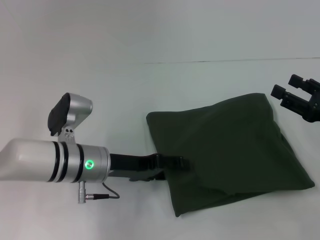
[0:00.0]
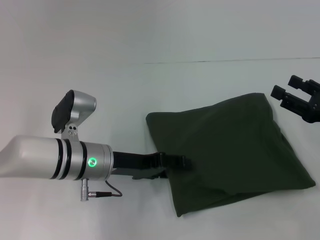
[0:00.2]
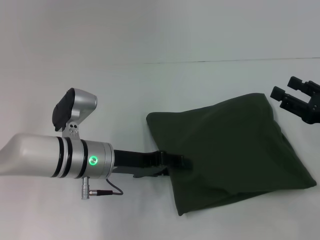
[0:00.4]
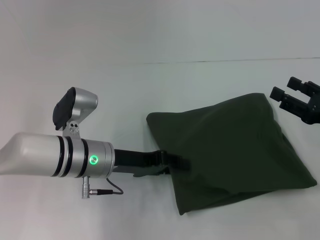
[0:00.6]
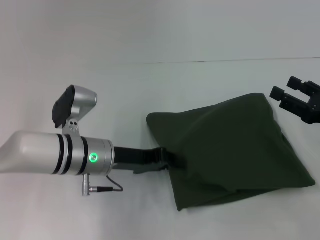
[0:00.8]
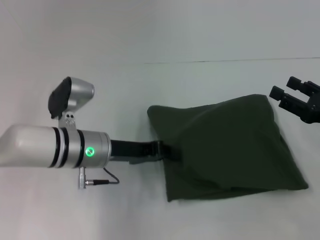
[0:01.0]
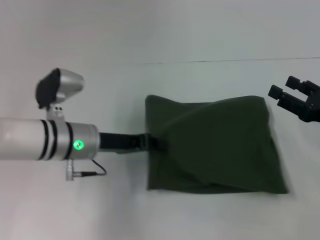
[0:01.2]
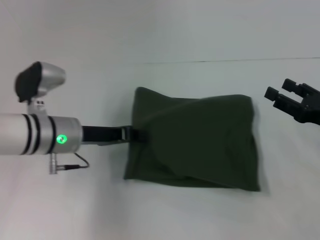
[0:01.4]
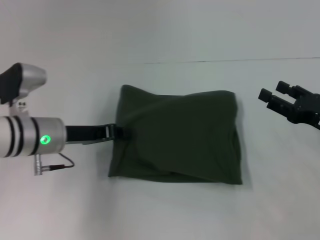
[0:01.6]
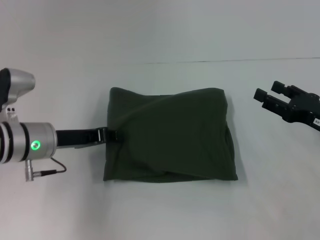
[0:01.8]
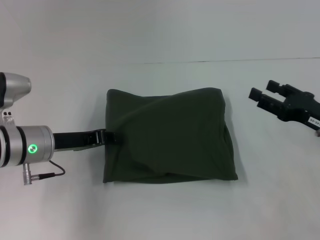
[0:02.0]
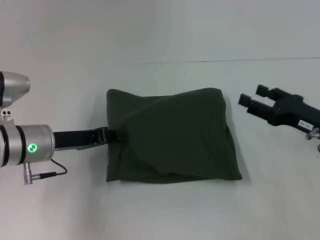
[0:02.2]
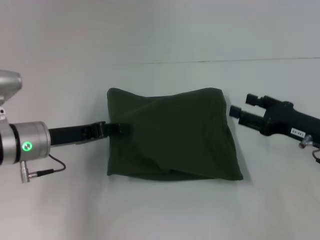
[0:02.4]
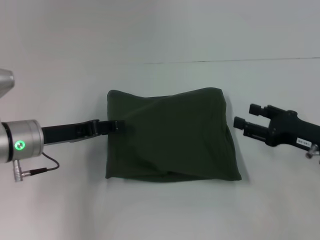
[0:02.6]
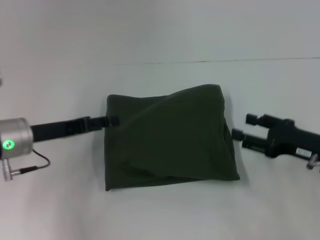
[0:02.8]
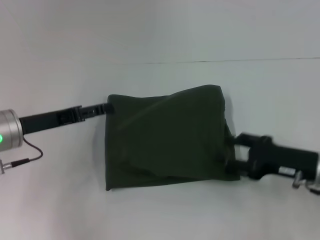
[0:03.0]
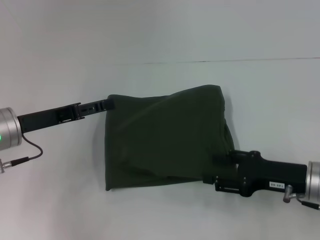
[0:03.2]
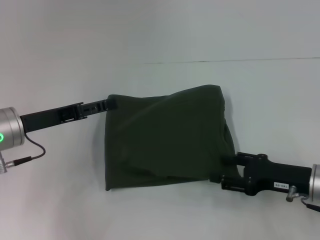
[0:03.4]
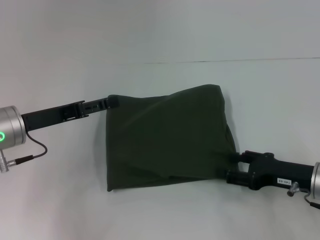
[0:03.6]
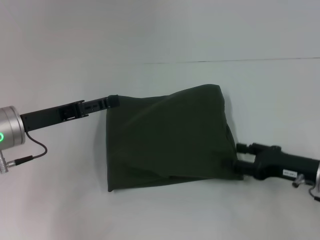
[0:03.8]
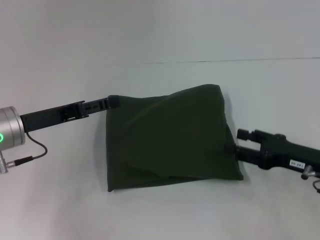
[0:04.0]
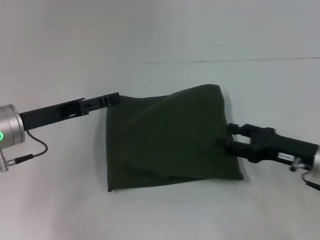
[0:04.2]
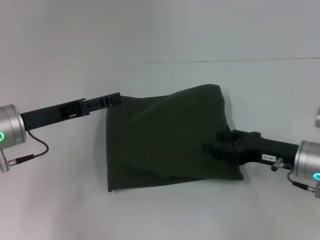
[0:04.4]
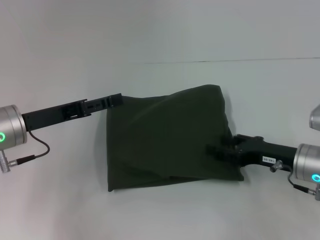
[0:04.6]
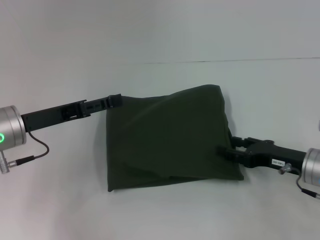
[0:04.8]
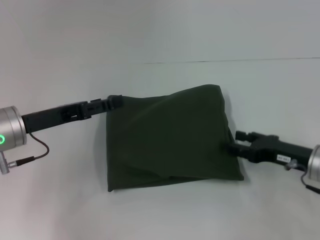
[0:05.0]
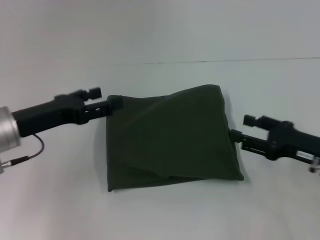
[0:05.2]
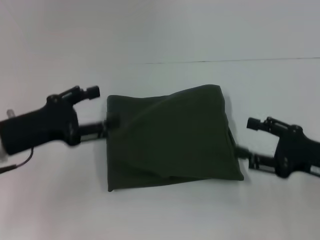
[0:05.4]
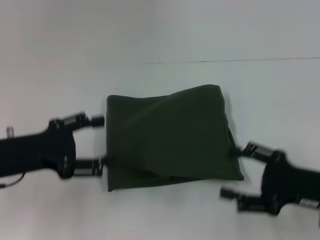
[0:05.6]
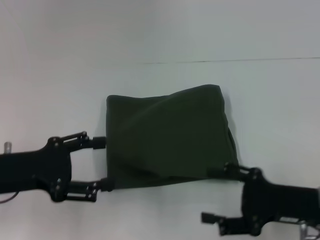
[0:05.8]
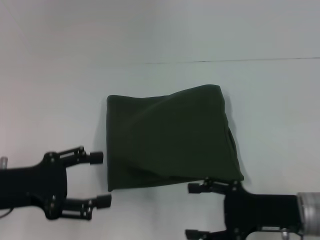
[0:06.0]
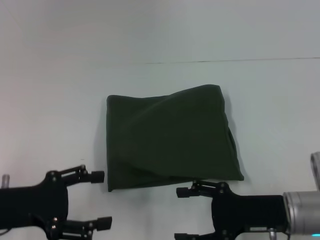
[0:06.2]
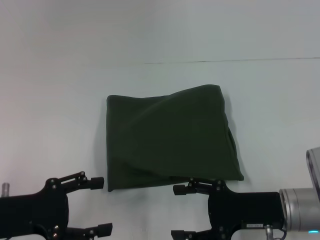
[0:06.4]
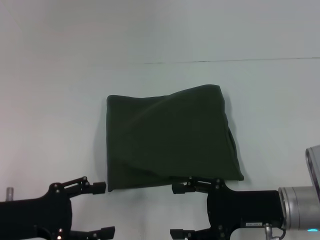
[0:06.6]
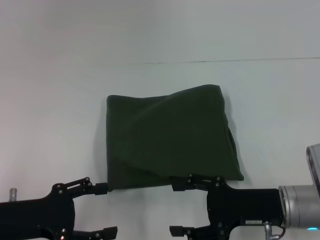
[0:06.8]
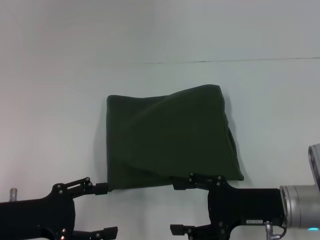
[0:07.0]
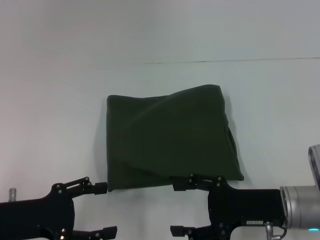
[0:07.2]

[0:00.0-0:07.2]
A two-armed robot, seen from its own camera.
0:00.0 to 0:01.4: The left gripper shifts by about 5 cm, and closes up.
0:01.4 to 0:02.8: The left gripper travels to the left by some 5 cm, and opens up.
0:02.8 to 0:04.4: The left gripper opens its fingers.
0:04.4 to 0:05.8: Both grippers move backward, about 5 cm.
0:05.8 to 0:07.2: The left gripper ends up roughly 5 cm from where it was.

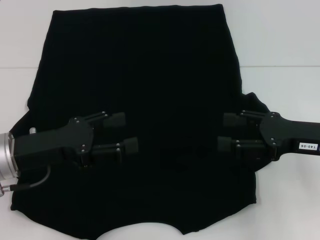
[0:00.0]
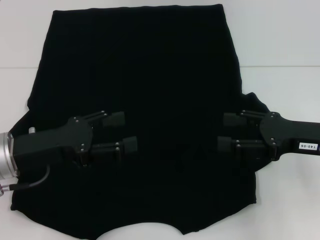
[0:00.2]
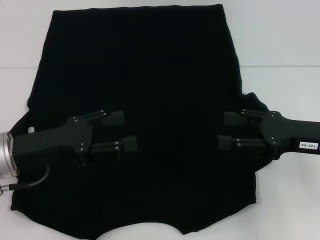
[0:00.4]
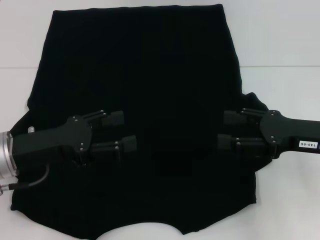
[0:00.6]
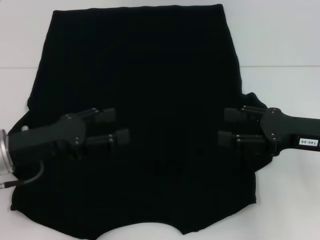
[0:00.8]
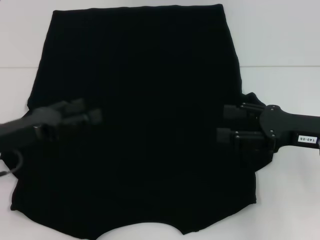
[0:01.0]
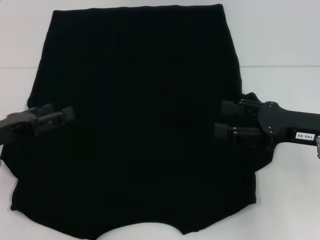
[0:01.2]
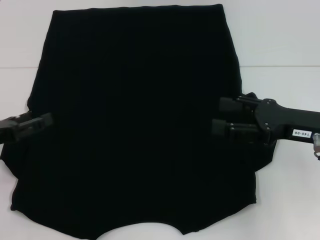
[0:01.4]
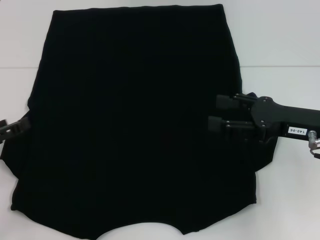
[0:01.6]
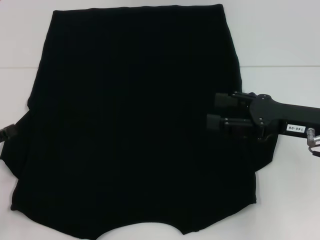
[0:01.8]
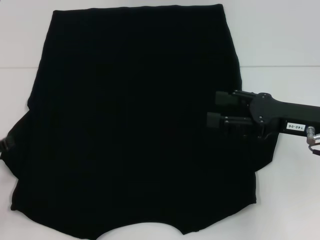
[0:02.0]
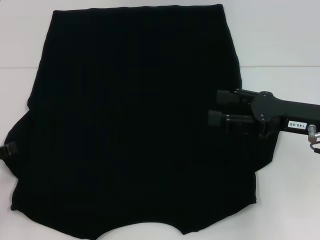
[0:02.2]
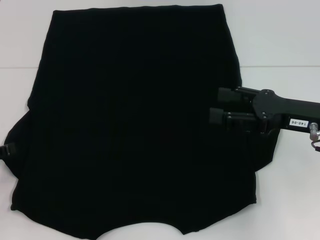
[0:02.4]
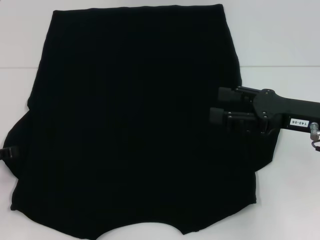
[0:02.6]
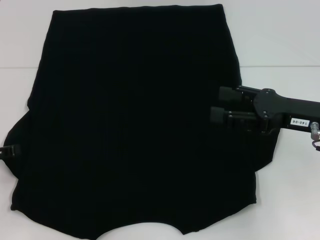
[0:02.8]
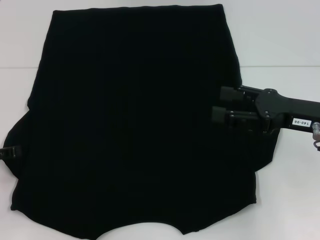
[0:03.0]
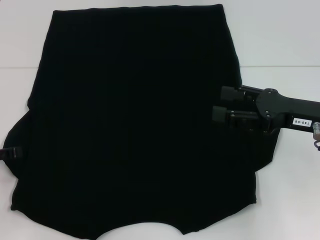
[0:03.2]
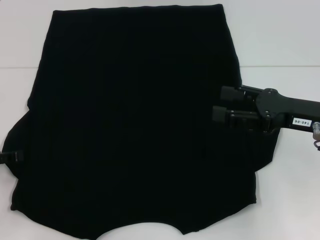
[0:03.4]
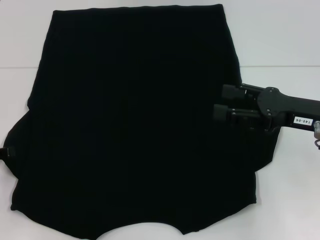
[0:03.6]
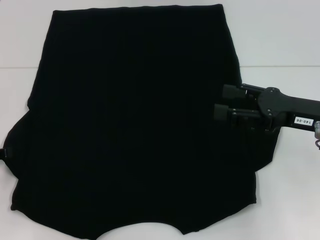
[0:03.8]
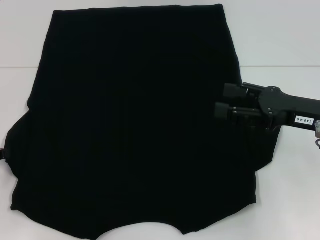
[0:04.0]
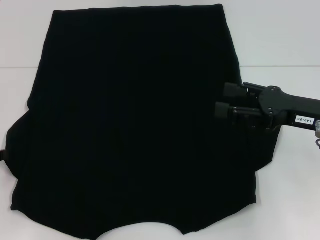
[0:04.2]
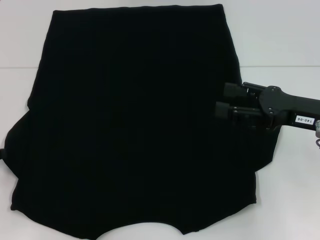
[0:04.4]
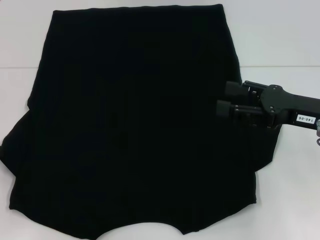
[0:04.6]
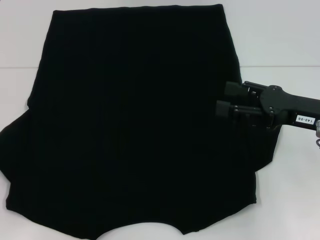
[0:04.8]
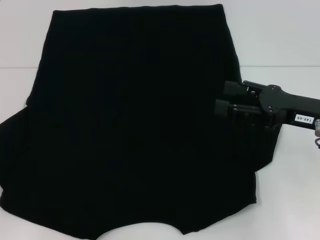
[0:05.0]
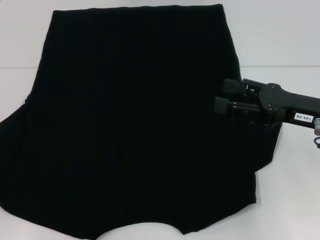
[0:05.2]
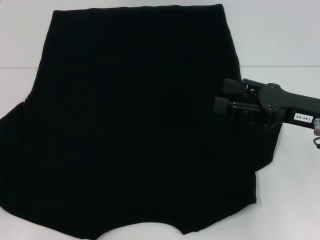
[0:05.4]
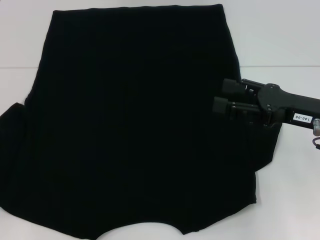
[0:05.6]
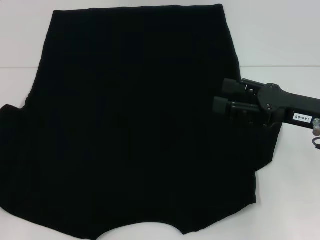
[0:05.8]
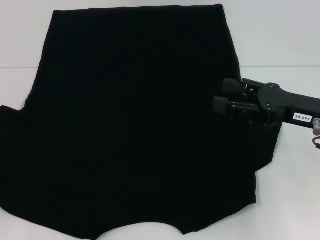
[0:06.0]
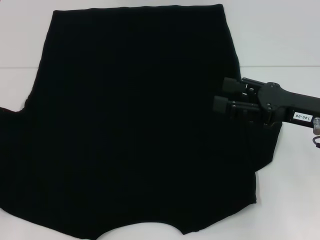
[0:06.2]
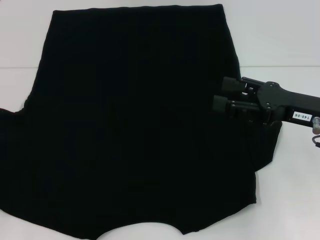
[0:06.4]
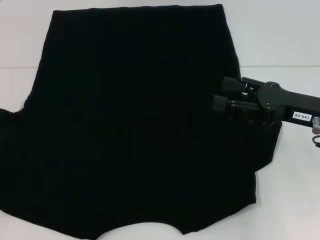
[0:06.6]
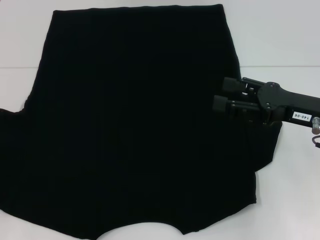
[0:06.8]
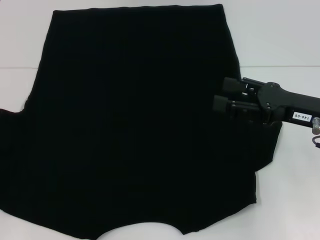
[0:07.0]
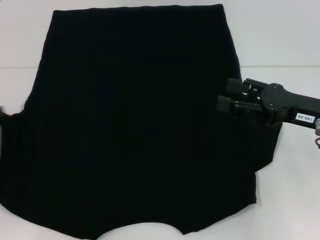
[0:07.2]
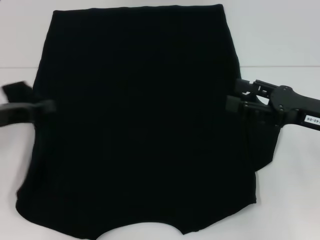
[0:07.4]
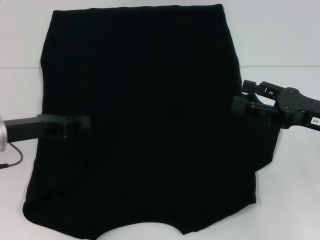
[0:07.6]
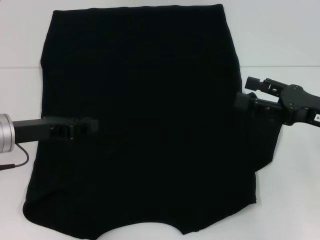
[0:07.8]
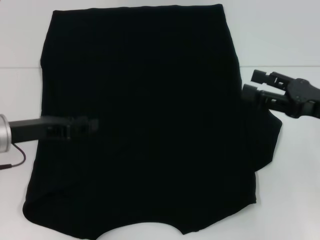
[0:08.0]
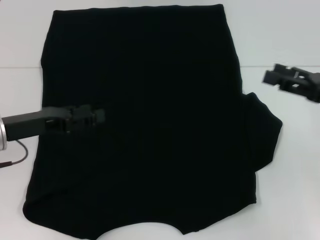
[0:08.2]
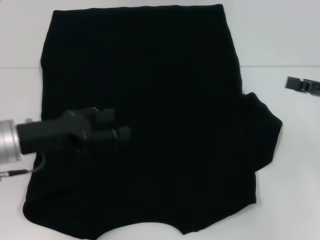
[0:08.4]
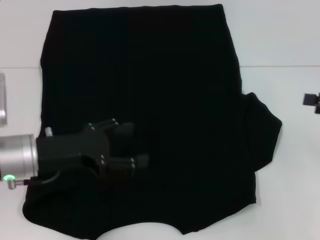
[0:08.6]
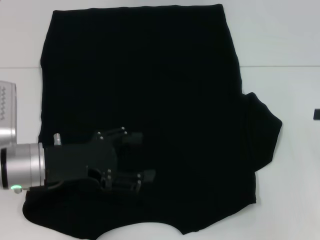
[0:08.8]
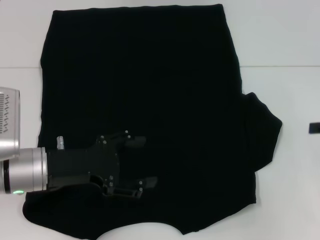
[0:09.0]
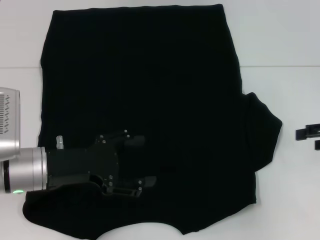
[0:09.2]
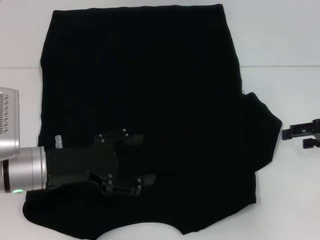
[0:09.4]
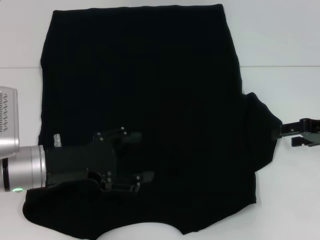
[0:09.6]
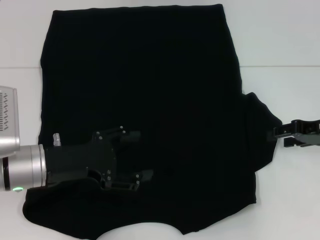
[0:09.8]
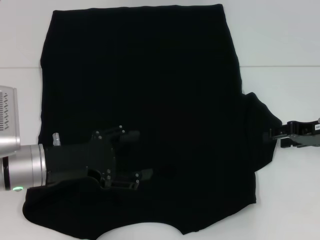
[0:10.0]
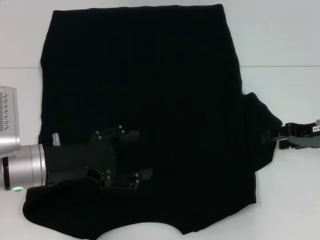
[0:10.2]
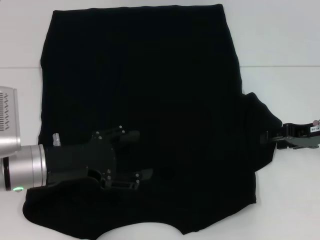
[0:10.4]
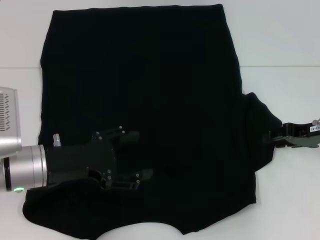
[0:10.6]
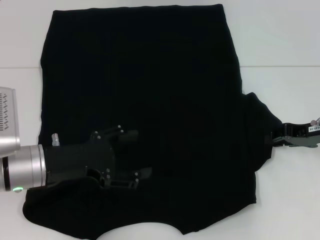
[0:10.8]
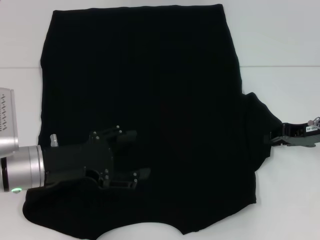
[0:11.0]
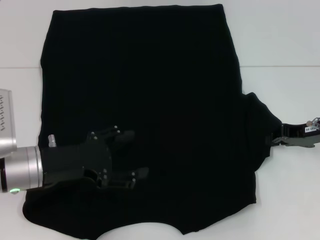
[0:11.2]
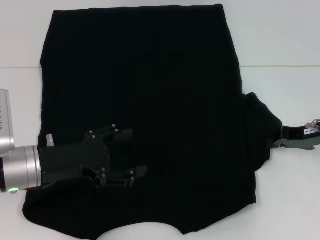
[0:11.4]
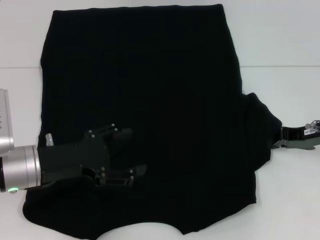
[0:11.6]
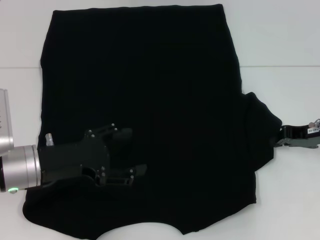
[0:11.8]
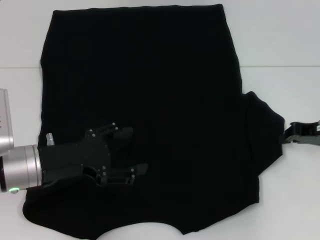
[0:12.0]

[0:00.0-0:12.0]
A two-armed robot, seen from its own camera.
Step, 0:00.0 to 0:08.0: Fold the bottom left sleeve with your left hand.
0:00.0 to 0:01.6: The left gripper heads to the left, covering some 10 cm.
0:01.6 to 0:03.0: The grippers stay close to where they were, moving slightly.
0:04.4 to 0:06.0: The left gripper moves about 5 cm.
0:06.0 to 0:07.6: The left gripper is displaced to the right and forward by about 15 cm.
0:07.6 to 0:09.0: The right gripper travels to the right by some 10 cm. Meanwhile the left gripper moves to the right, about 5 cm, and opens up.
0:09.0 to 0:10.4: The right gripper shifts some 10 cm to the left.
0:10.4 to 0:12.0: The right gripper closes.

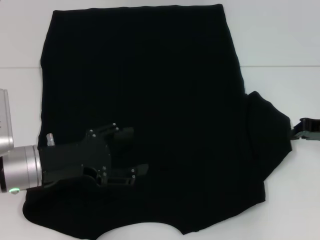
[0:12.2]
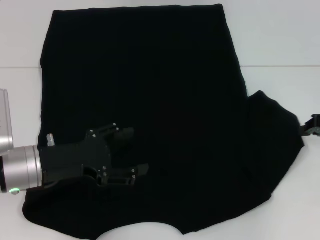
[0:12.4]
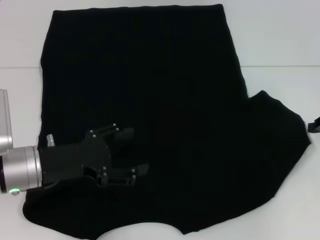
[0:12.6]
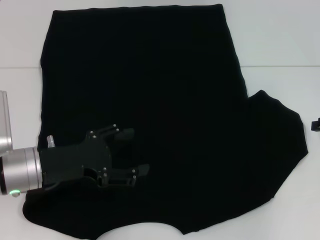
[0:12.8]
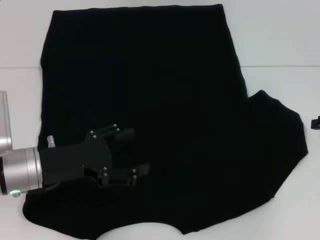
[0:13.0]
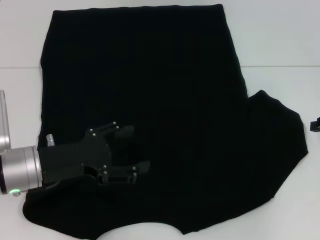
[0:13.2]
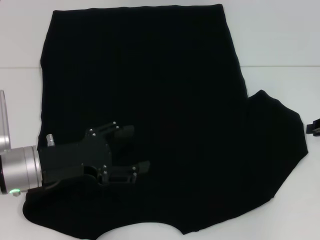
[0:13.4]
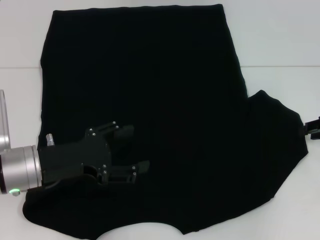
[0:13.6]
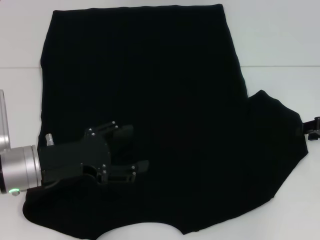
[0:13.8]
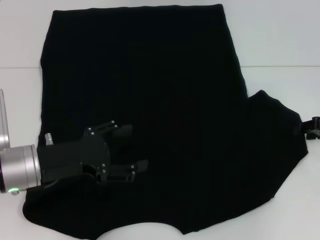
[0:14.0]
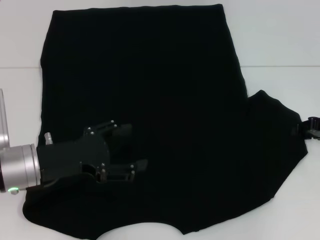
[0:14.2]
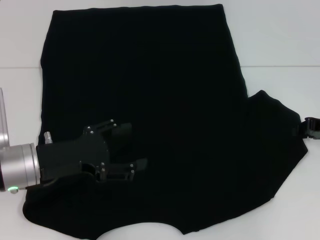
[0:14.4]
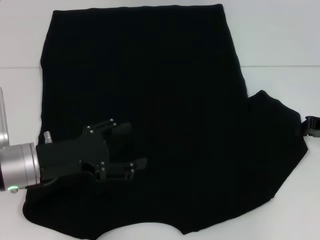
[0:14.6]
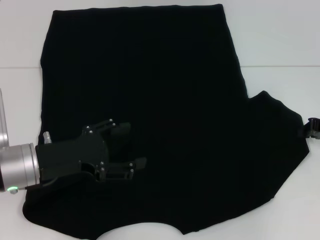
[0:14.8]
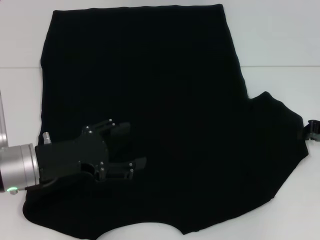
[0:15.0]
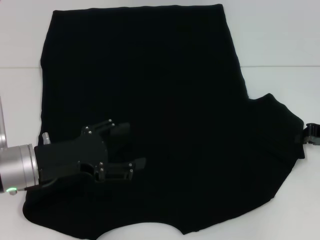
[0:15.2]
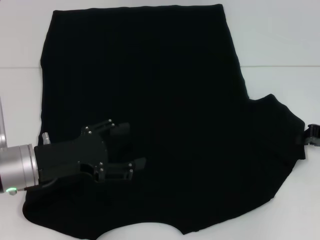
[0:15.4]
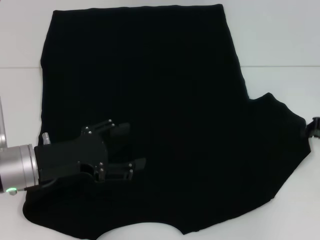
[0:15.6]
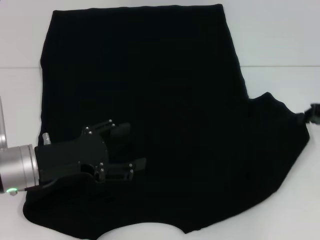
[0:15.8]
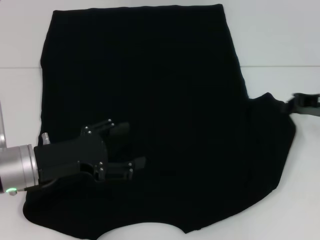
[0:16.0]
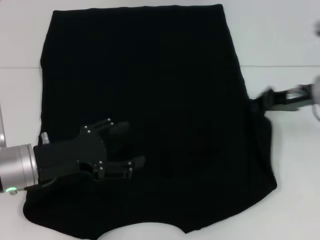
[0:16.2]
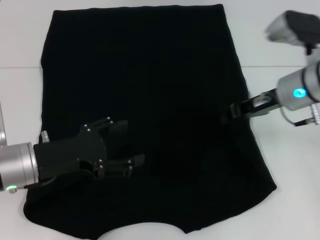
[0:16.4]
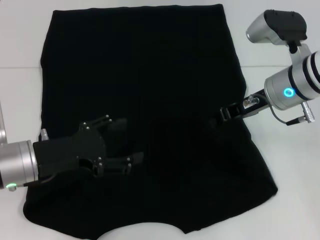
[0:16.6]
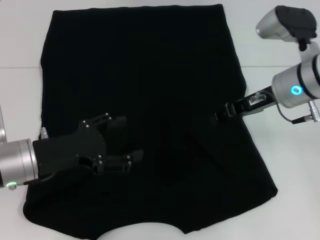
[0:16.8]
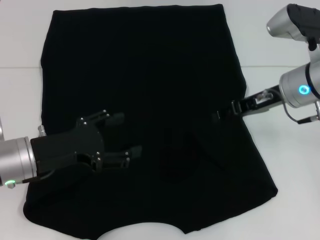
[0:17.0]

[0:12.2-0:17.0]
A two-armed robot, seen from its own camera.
0:12.2 to 0:13.8: The right gripper opens its fingers.
0:13.8 to 0:15.4: The grippers move only a little.
0:15.4 to 0:17.0: The right gripper shifts about 15 cm to the left and upward.
